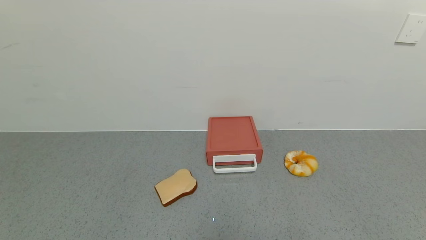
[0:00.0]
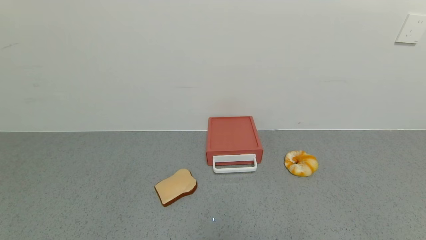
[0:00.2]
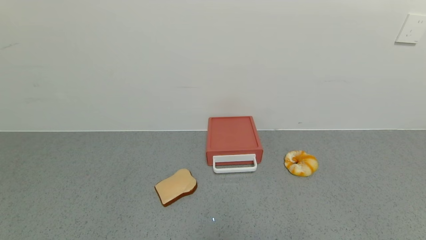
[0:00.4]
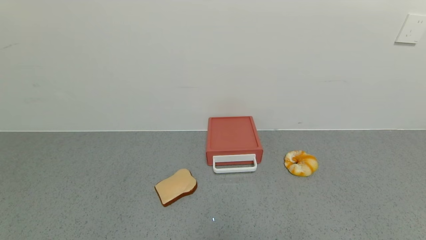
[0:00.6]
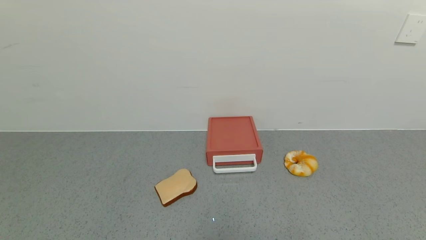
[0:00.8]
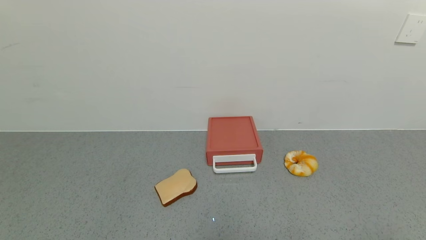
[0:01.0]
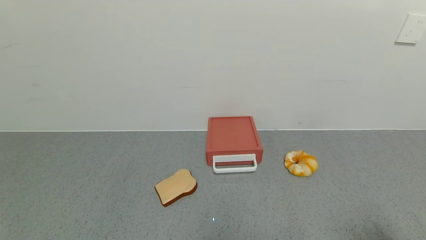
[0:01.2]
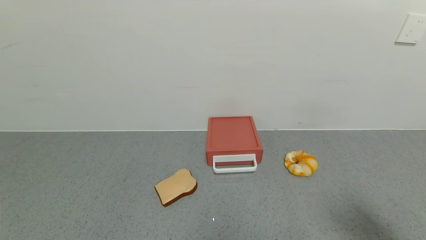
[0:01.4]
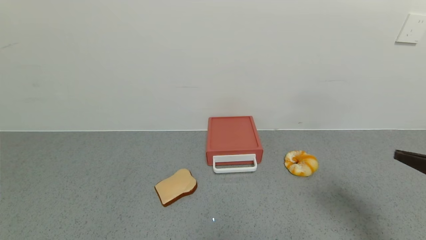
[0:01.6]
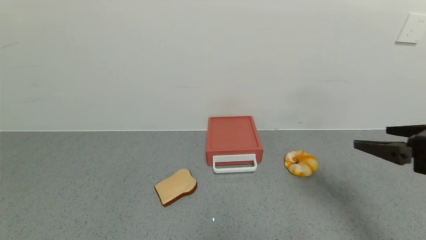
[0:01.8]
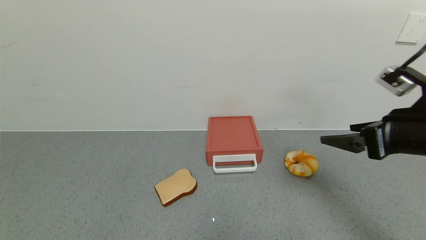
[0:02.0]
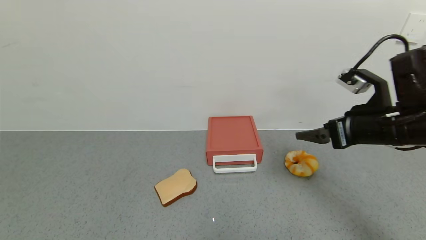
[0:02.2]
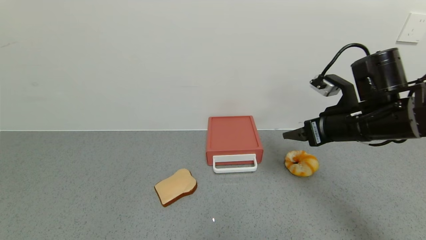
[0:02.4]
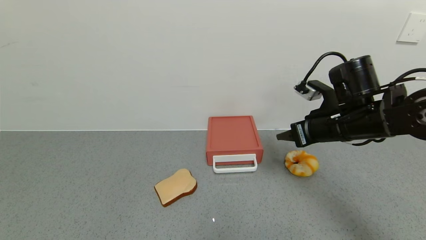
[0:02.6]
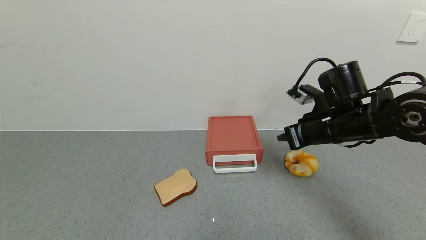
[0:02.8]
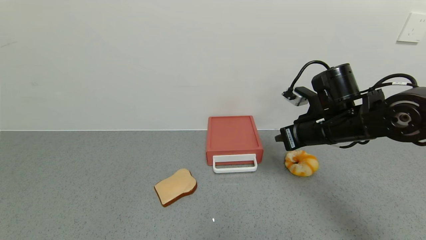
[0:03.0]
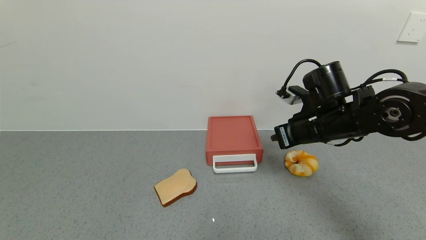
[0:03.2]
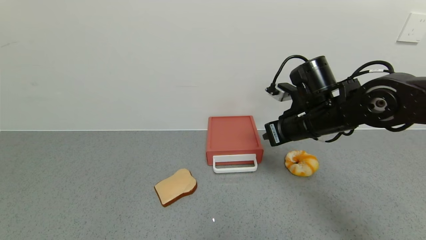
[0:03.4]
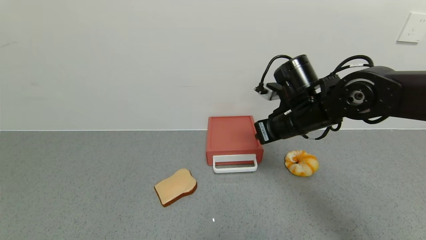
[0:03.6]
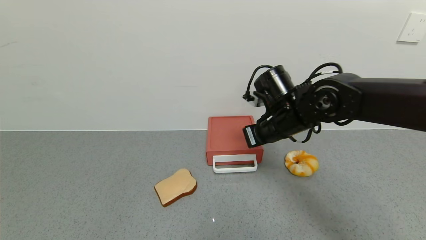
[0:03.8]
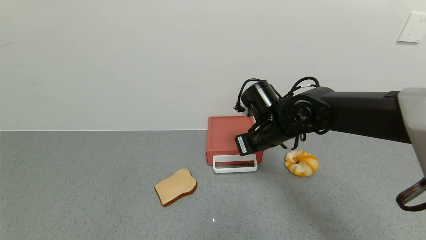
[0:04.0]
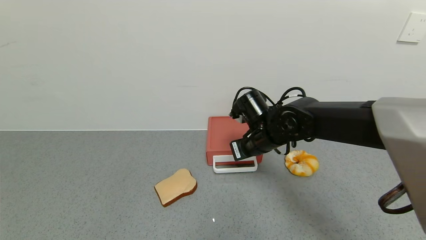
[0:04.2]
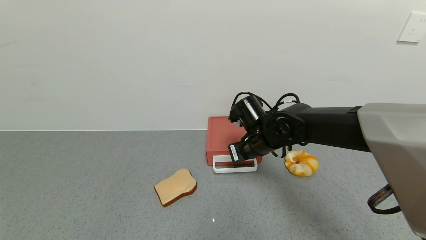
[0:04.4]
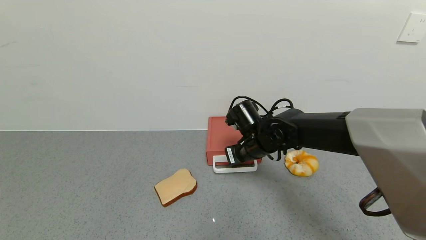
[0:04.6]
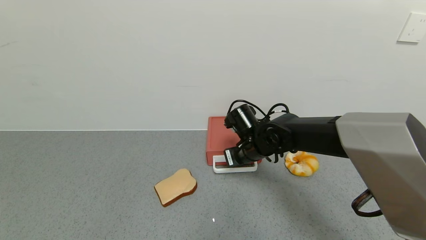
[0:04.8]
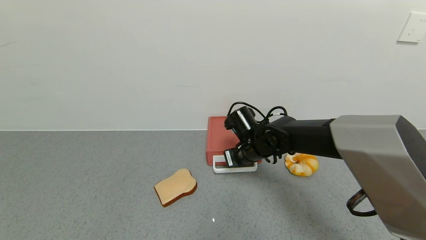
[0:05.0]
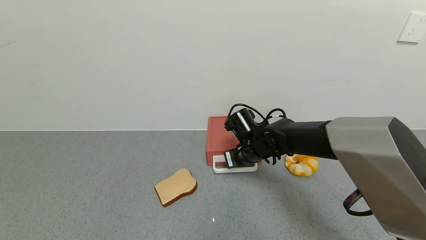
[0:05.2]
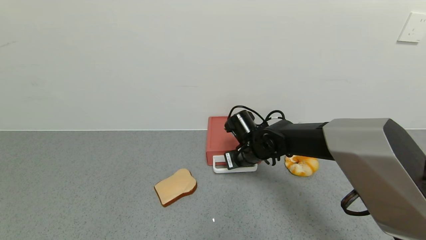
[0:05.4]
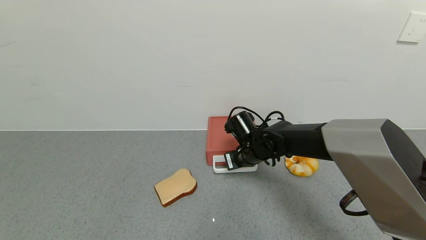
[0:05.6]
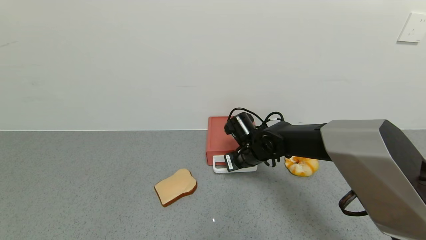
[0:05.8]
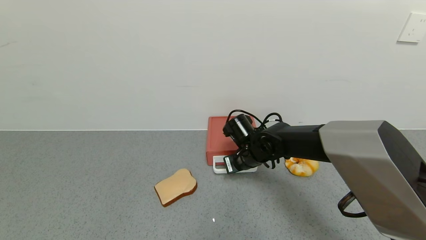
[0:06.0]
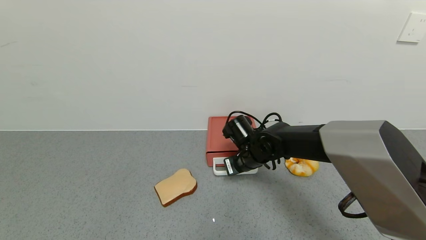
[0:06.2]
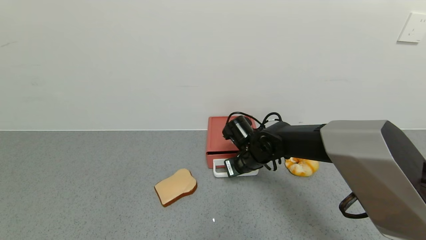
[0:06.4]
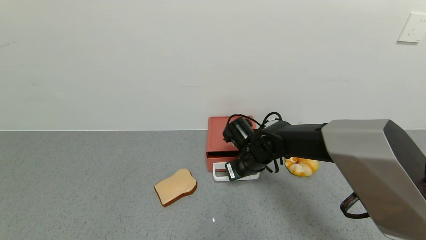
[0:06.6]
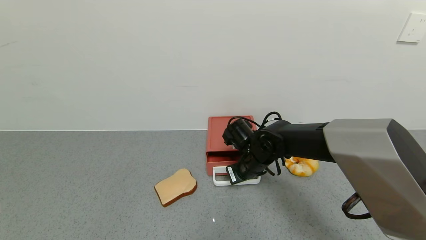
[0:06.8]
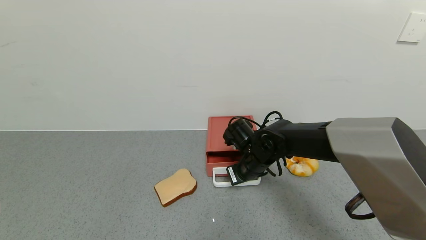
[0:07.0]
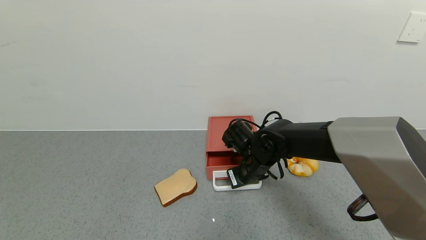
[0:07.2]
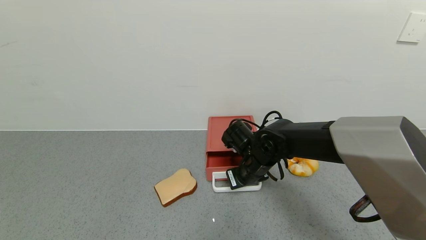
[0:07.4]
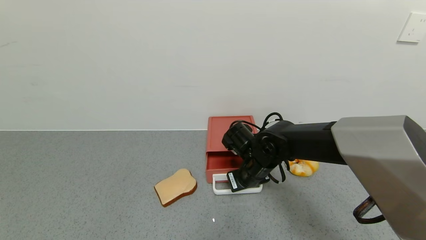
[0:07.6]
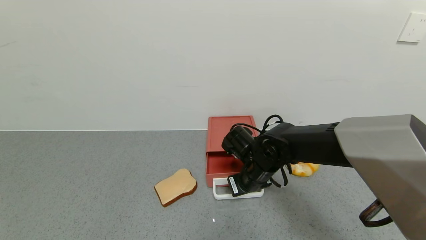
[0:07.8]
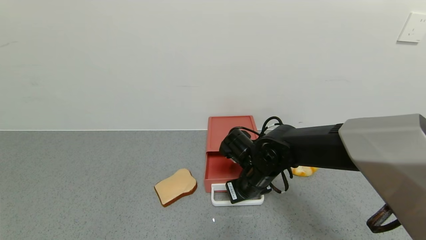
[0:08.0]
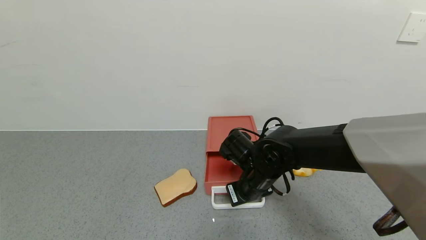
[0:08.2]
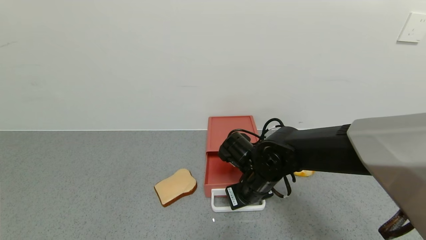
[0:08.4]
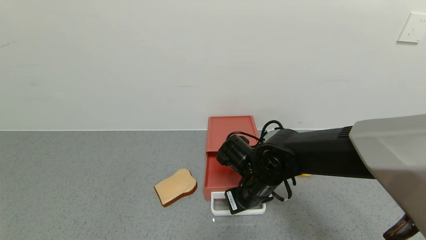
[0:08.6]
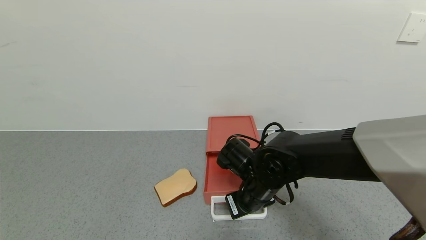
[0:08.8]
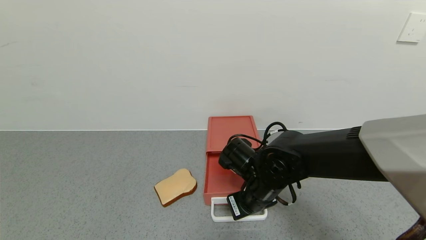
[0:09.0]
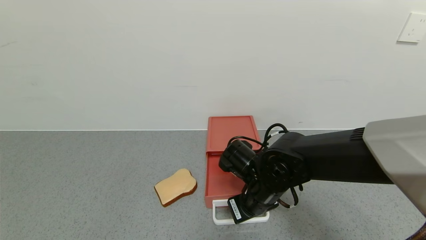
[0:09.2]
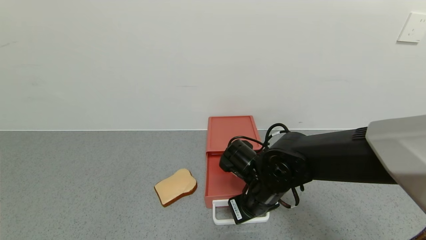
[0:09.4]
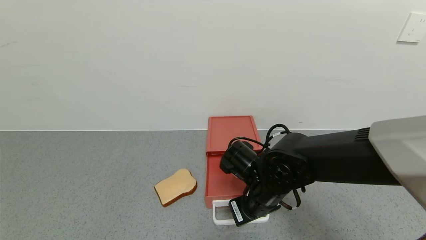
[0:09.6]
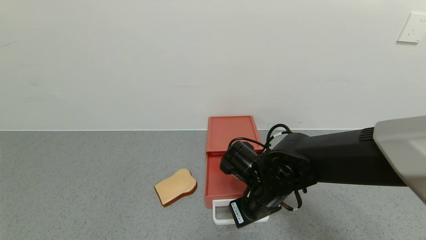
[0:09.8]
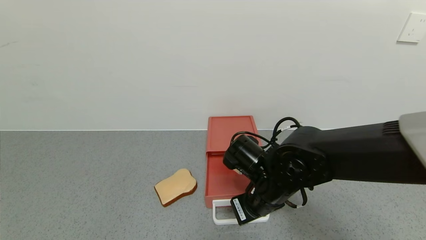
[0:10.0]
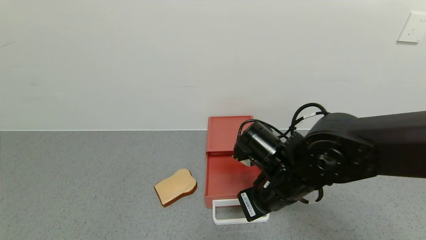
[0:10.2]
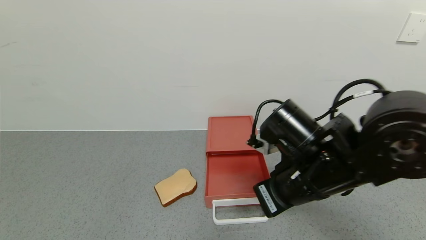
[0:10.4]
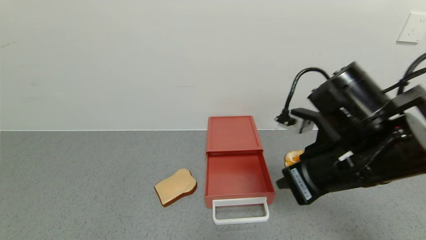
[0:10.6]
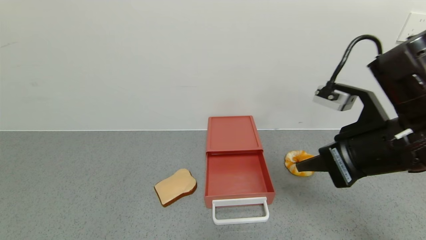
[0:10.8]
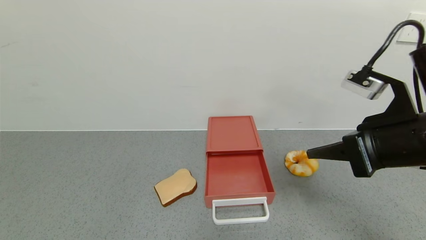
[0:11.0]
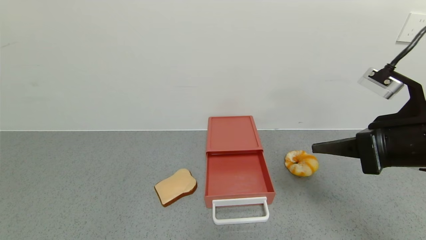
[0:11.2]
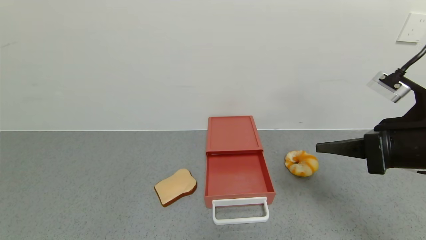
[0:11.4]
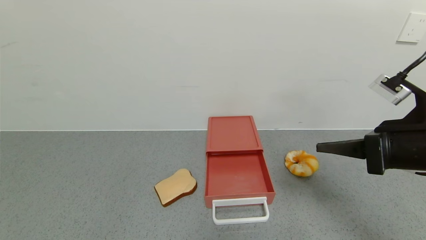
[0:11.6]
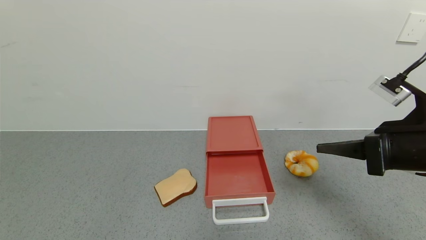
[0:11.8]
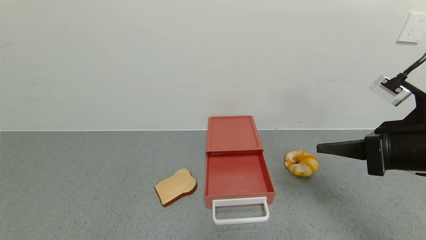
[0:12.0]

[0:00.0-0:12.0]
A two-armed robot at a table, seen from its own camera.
Task of the whole recording: use the gripper to open the drawer and close the red drawer.
Step, 0:00.0 to 0:10.2: Open the red drawer with the right gripper.
0:00.0 to 0:01.6: The right gripper moves upward and forward, approximately 25 cm.
0:01.6 to 0:03.0: The right gripper is displaced forward and to the left by roughly 25 cm, and closes.
0:03.0 to 0:04.4: The right gripper shifts roughly 15 cm to the left and downward.
0:04.4 to 0:06.0: The right gripper is displaced downward by some 5 cm.
0:06.0 to 0:07.6: The grippers make only small movements.
0:07.6 to 0:09.0: The right gripper heads backward, covering about 5 cm.
0:09.0 to 0:10.4: The right gripper travels upward, backward and to the right by some 10 cm.
0:10.4 to 0:12.0: The right gripper goes about 15 cm to the right.

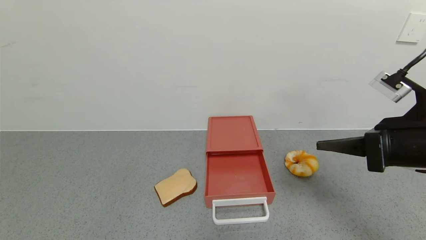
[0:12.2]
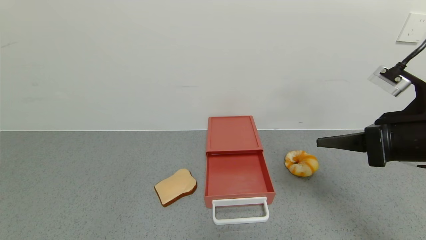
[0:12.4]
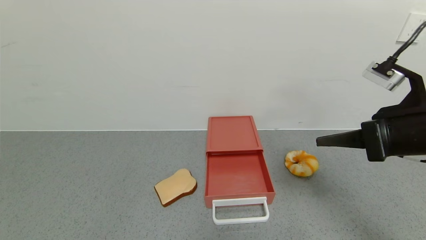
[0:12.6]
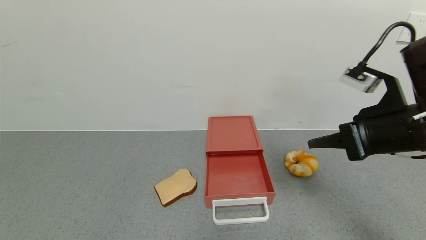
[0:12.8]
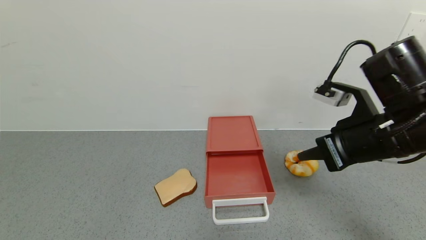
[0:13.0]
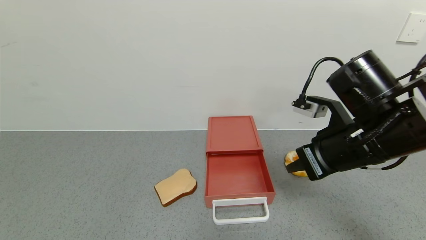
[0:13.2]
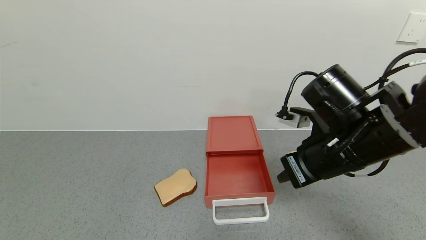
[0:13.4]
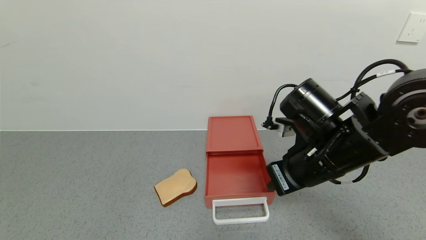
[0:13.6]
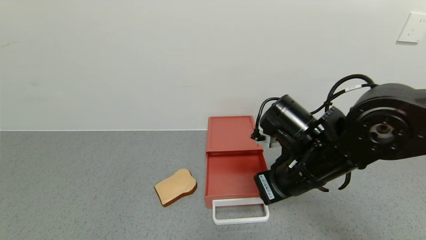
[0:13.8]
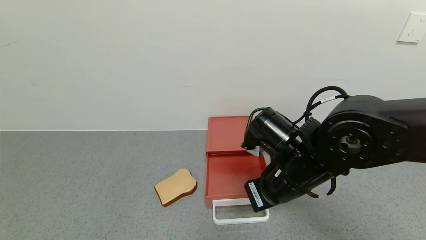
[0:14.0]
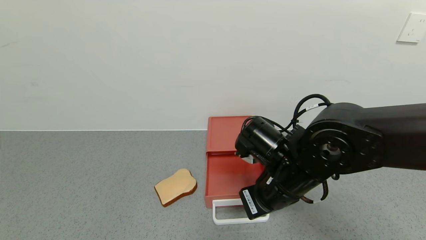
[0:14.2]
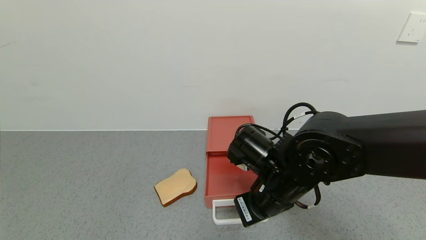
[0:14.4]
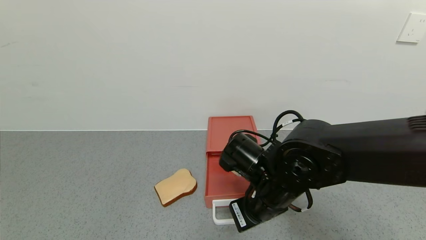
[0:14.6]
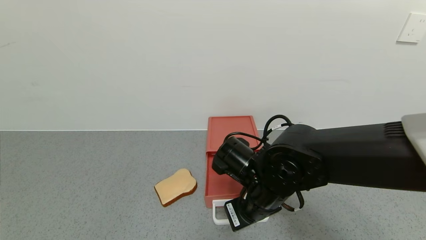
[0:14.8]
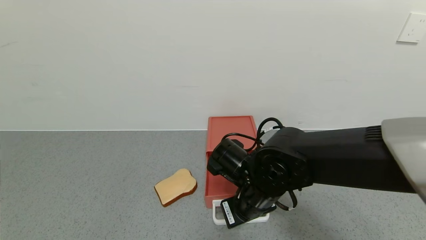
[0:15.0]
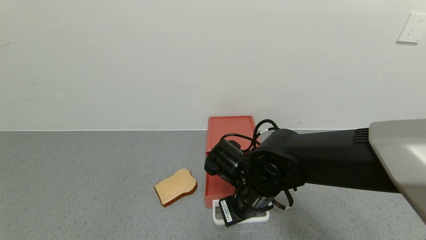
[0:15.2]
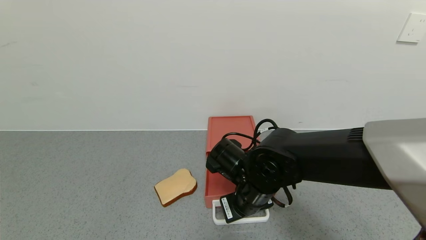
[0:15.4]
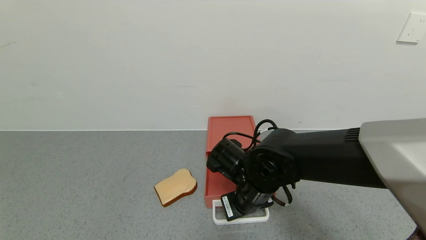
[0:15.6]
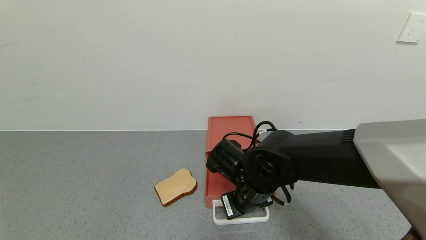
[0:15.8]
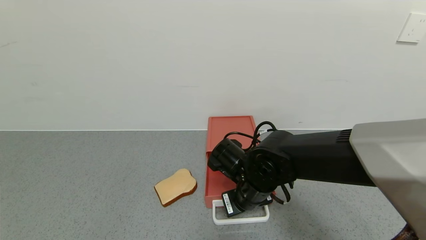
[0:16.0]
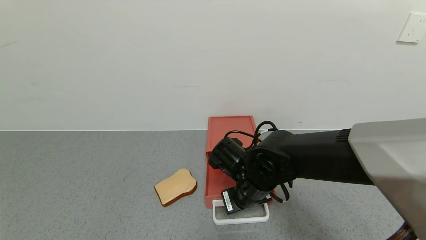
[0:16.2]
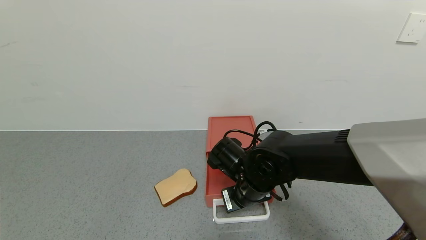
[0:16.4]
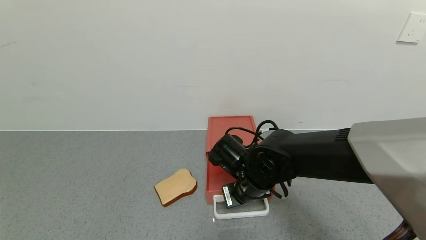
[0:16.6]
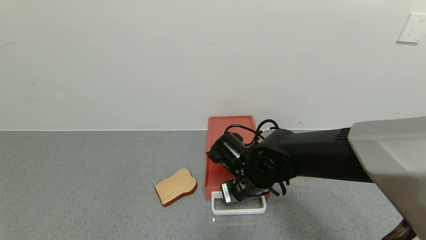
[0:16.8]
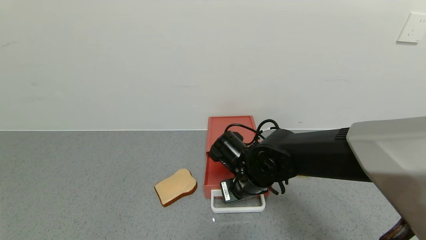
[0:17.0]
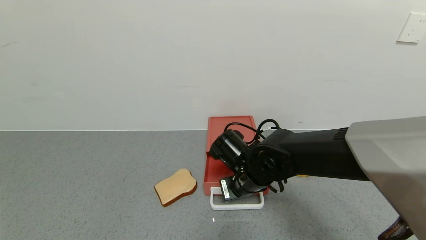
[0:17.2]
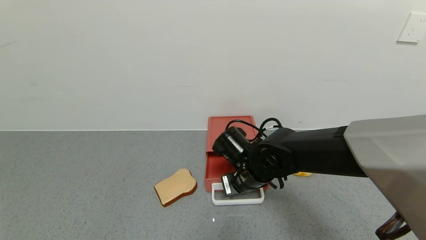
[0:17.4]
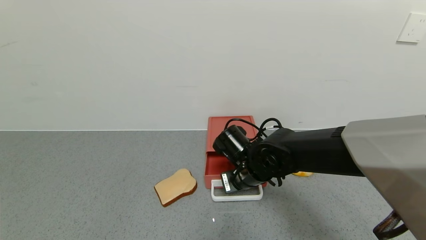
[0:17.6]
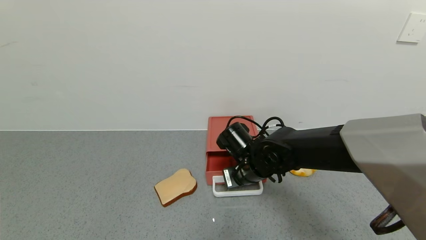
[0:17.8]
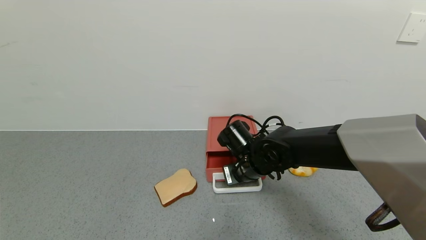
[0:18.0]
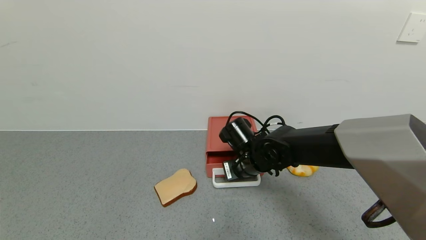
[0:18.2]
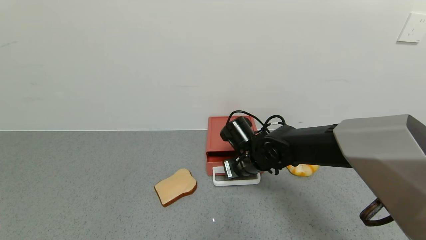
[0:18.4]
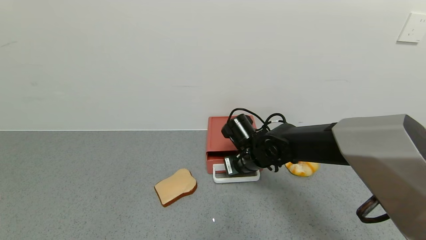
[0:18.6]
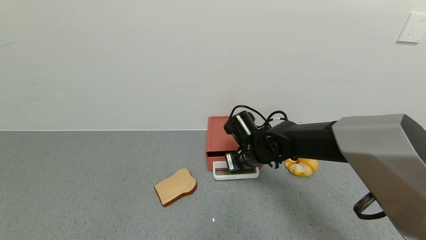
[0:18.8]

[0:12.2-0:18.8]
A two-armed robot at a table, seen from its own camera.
Task of the whole recording: use the gripper to open the drawer and close the red drawer.
0:12.2 to 0:13.8: The right gripper shifts roughly 15 cm to the left.
0:13.8 to 0:15.4: The right gripper moves downward and to the left, roughly 10 cm.
0:15.4 to 0:17.2: The grippers make only small movements.
0:17.2 to 0:18.8: The right gripper travels forward by about 5 cm.
